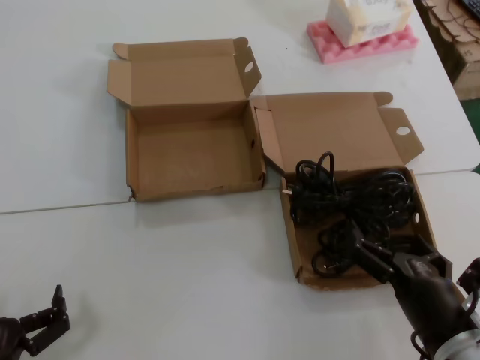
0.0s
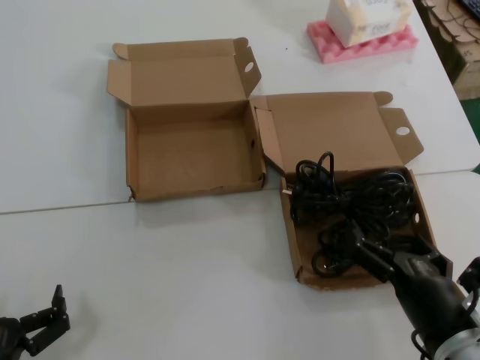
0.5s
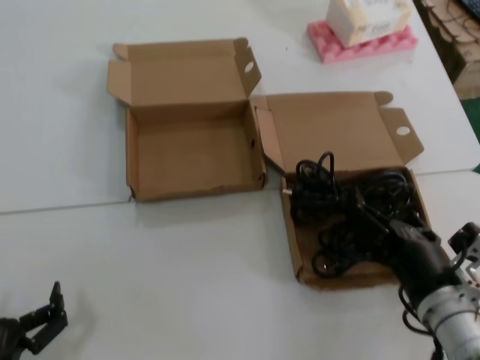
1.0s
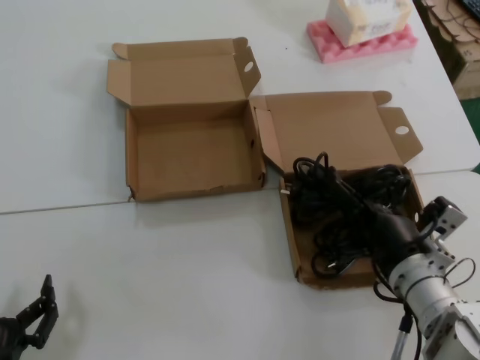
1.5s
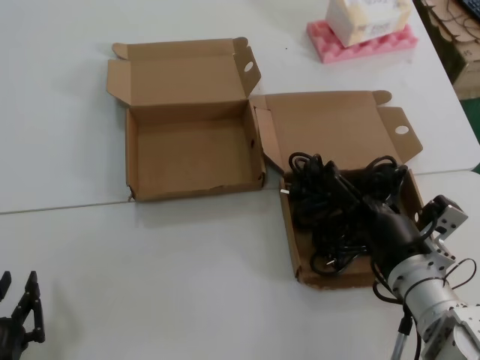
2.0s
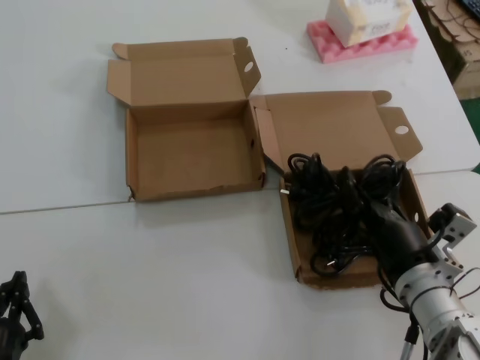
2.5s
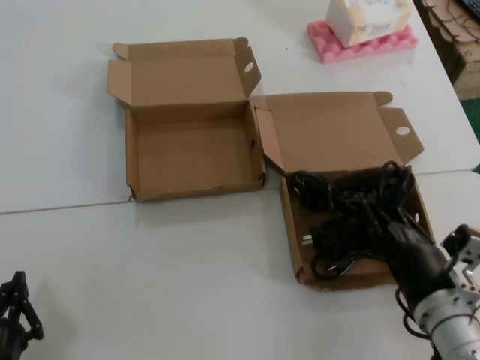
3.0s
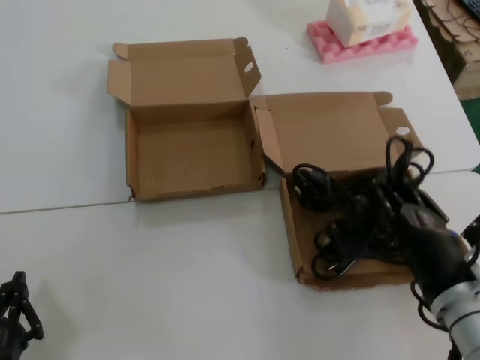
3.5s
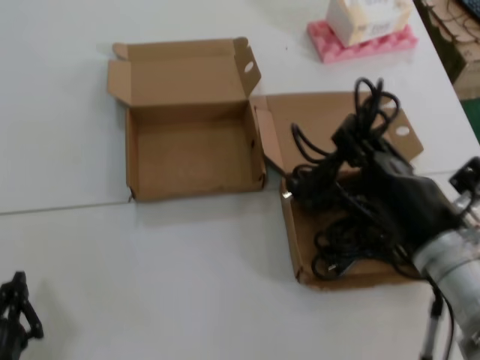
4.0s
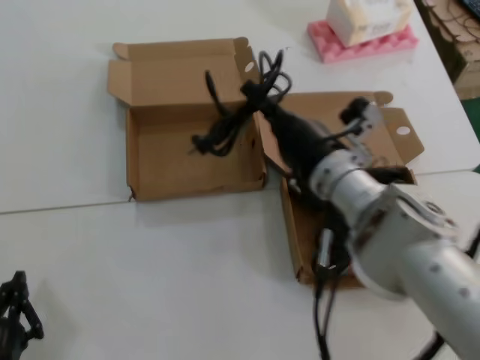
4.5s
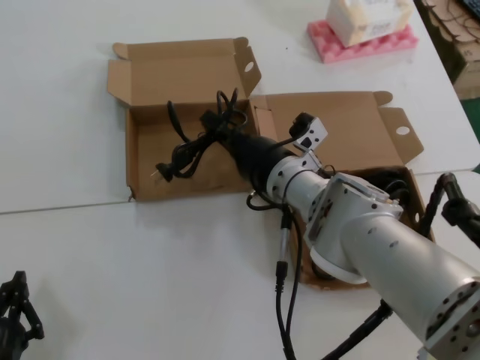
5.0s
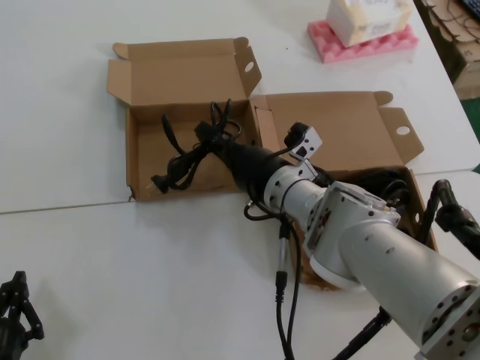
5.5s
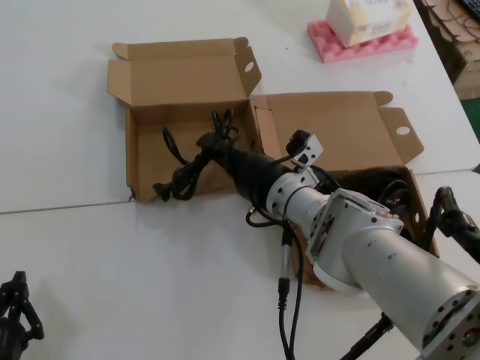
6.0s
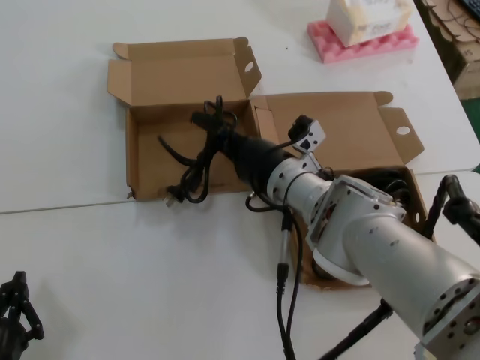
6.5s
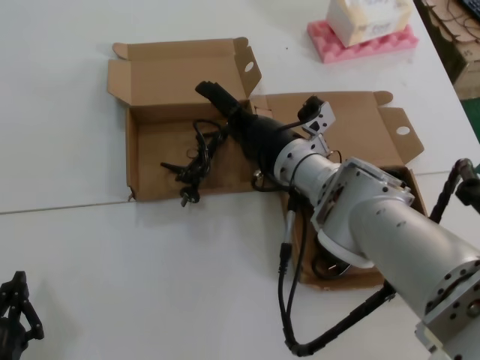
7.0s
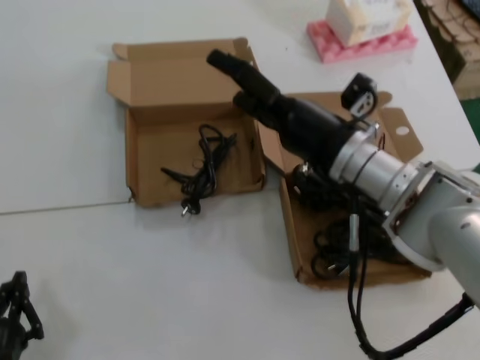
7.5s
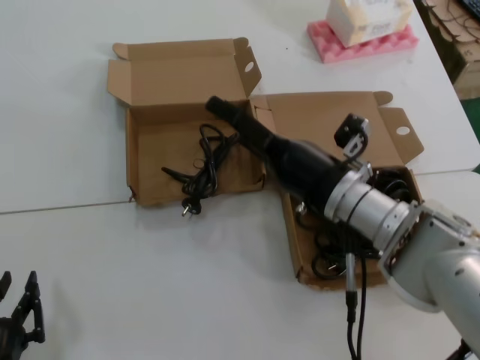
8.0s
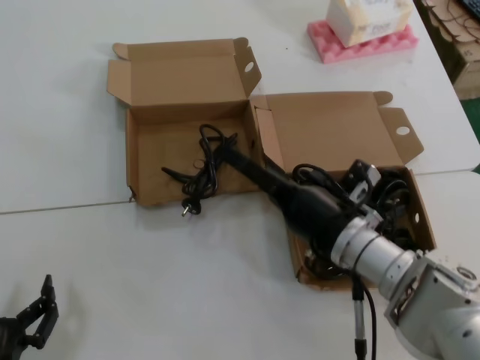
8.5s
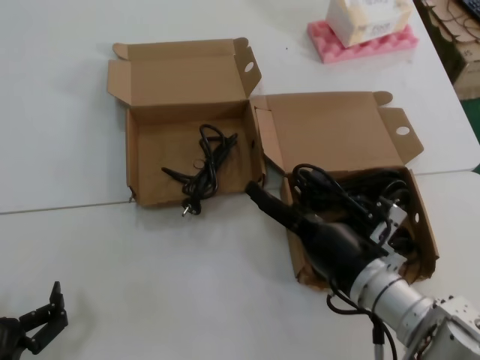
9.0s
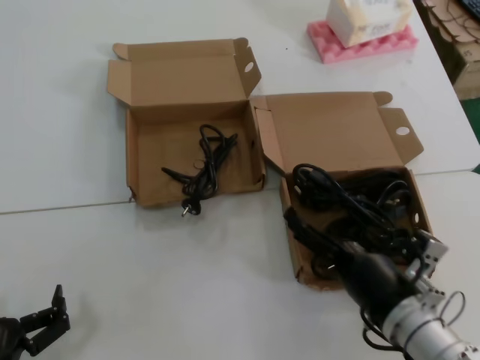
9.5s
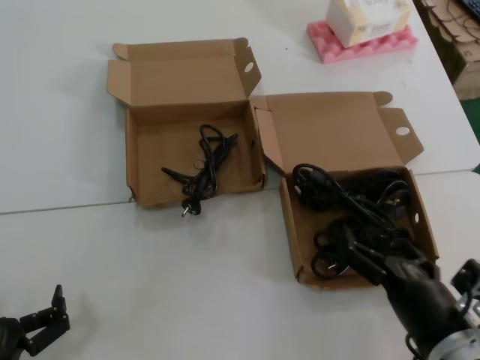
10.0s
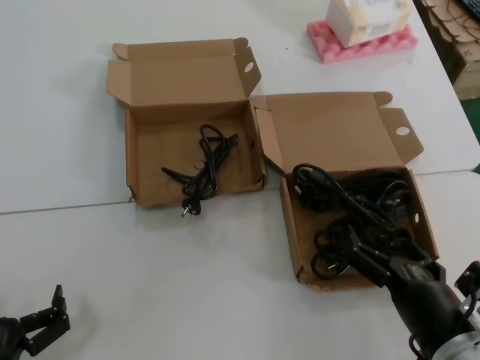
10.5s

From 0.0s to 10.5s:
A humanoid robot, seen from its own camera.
Task of the whole recording: Pick up the power cord from the box containing it and place it in another box.
Step, from 0.0s to 2.0s: Grasp the data cable.
Step, from 2.5s to 6.5s: Place the data cable in the another box.
From 0.0s to 2.0s: The right hand shifts roughly 10 cm forward.
From 2.0s to 4.0s: The right hand goes about 5 cm upward.
From 4.0s to 6.5s: The right hand is displaced forward and to the left by approximately 20 cm.
From 6.5s to 8.5s: The right hand travels backward and to the right by roughly 10 cm.
From 8.5s to 10.5s: The right hand moves backward, approximately 15 cm.
